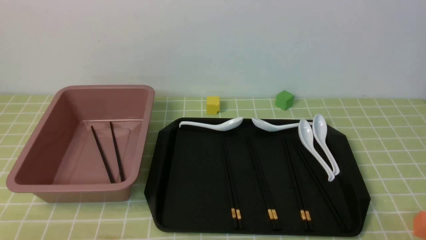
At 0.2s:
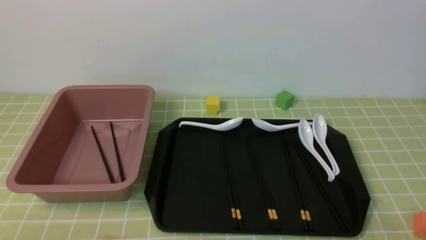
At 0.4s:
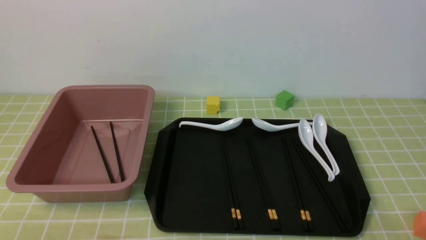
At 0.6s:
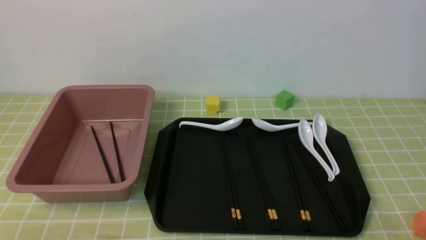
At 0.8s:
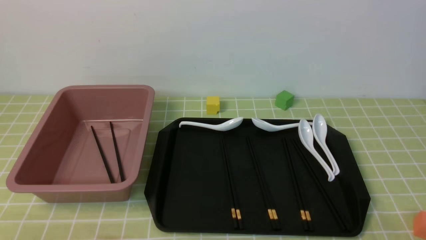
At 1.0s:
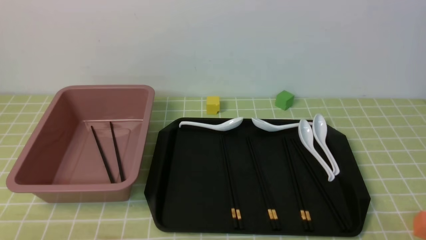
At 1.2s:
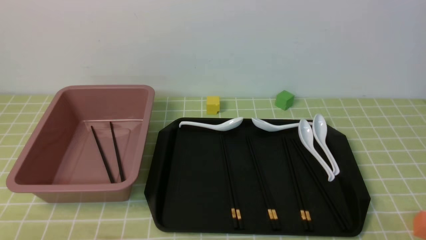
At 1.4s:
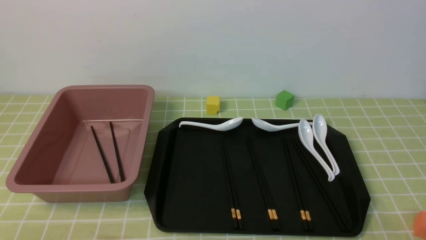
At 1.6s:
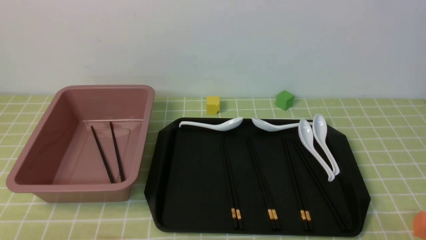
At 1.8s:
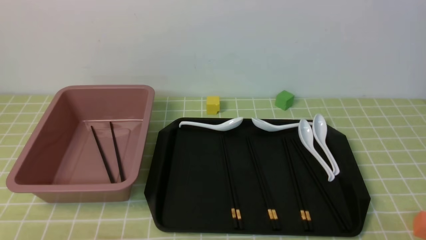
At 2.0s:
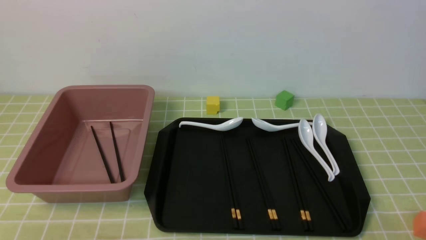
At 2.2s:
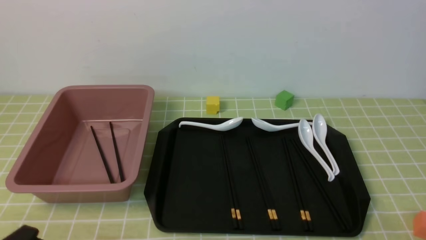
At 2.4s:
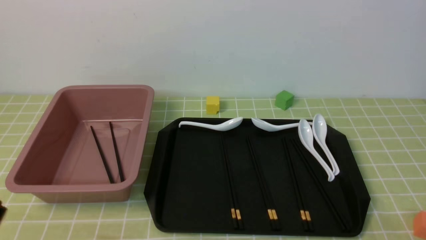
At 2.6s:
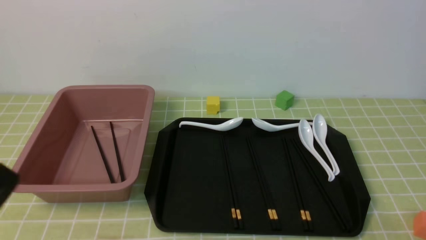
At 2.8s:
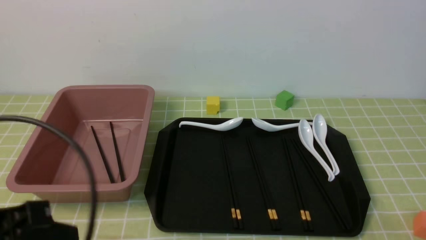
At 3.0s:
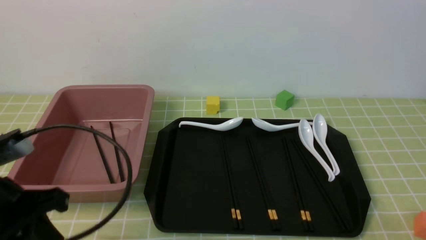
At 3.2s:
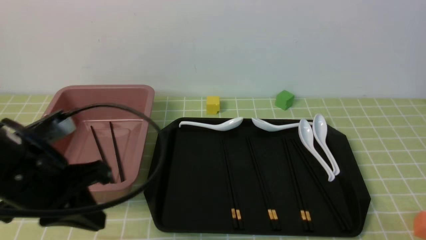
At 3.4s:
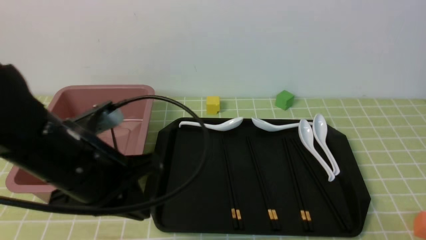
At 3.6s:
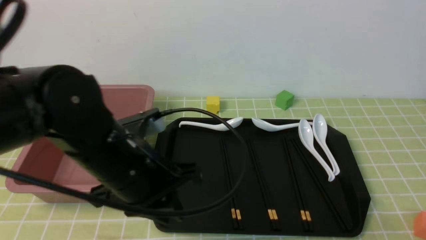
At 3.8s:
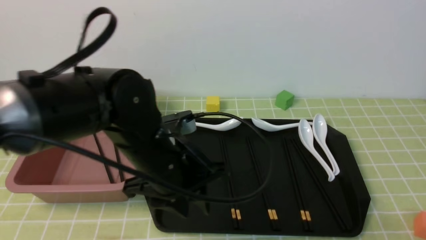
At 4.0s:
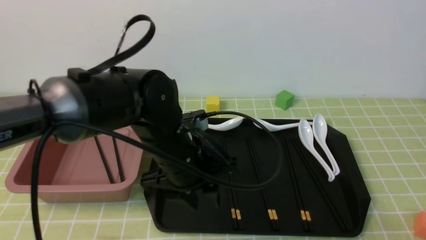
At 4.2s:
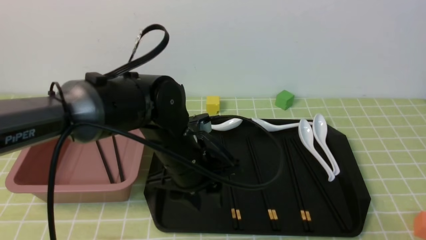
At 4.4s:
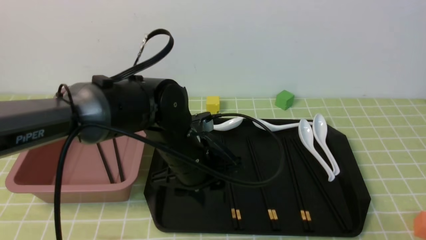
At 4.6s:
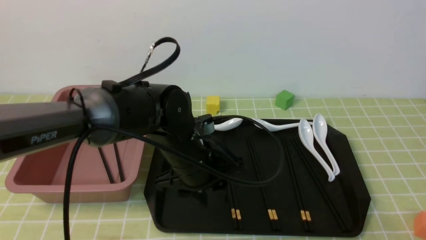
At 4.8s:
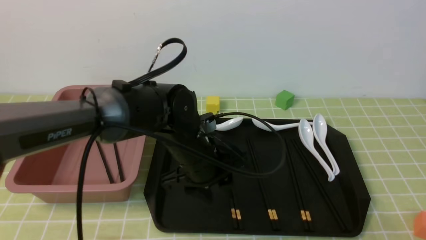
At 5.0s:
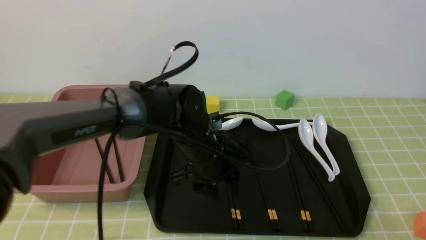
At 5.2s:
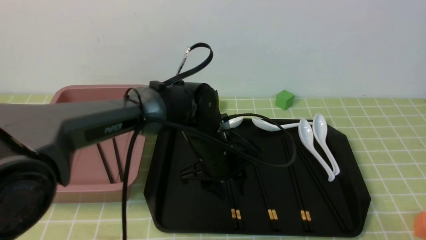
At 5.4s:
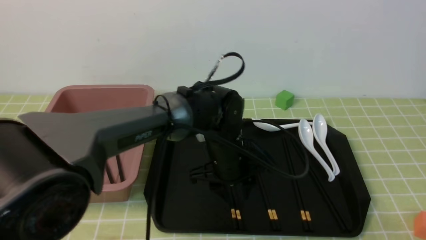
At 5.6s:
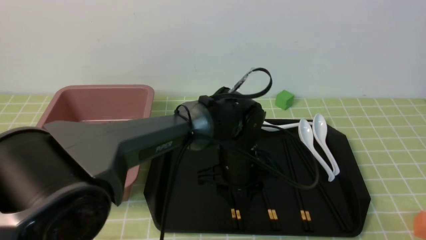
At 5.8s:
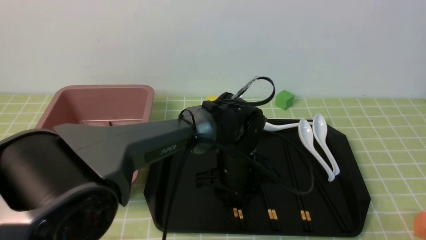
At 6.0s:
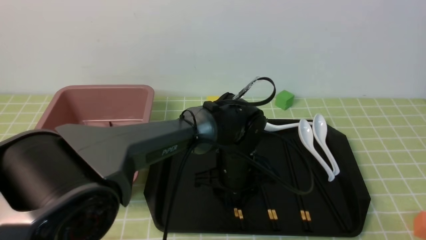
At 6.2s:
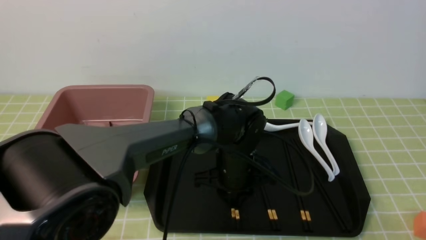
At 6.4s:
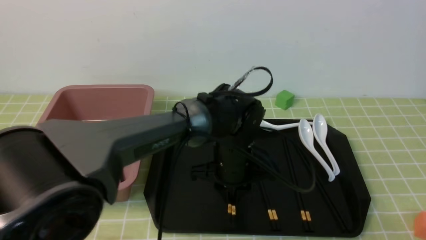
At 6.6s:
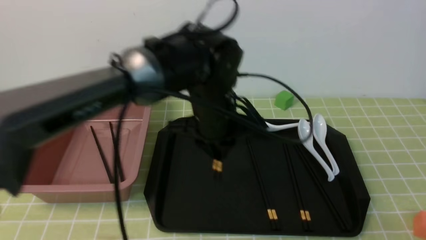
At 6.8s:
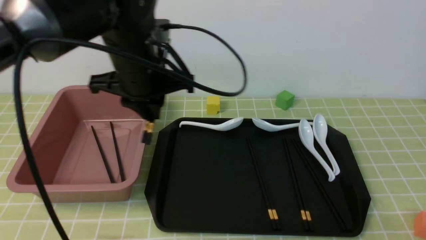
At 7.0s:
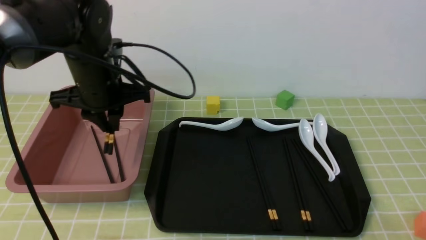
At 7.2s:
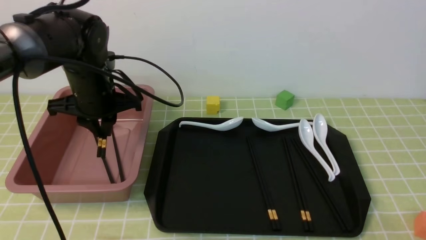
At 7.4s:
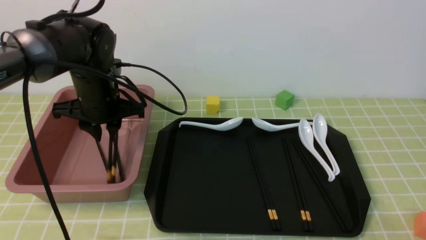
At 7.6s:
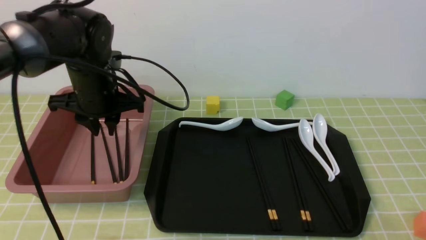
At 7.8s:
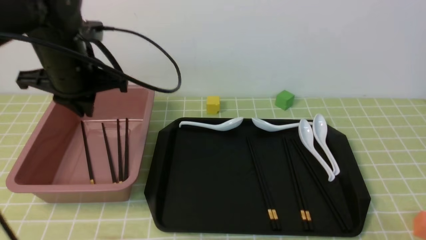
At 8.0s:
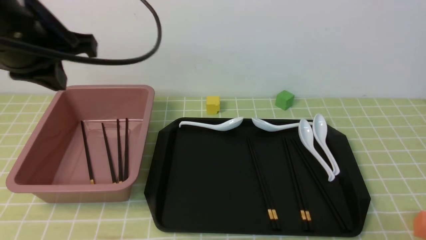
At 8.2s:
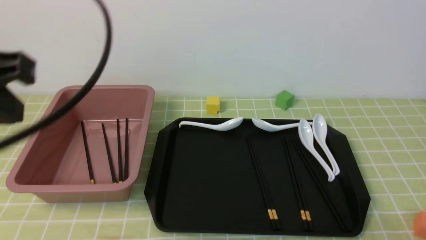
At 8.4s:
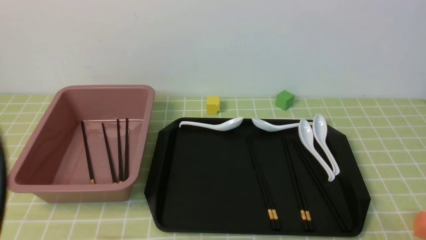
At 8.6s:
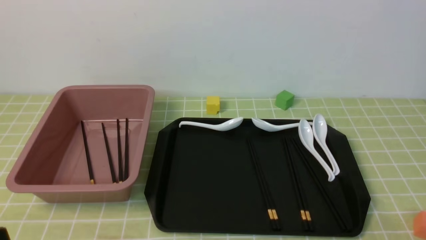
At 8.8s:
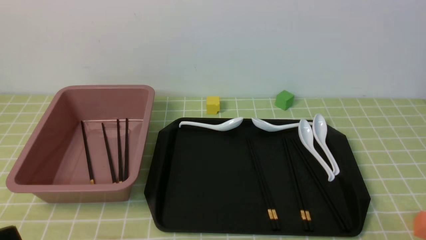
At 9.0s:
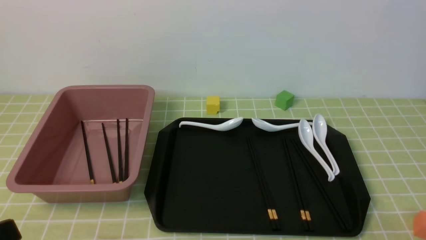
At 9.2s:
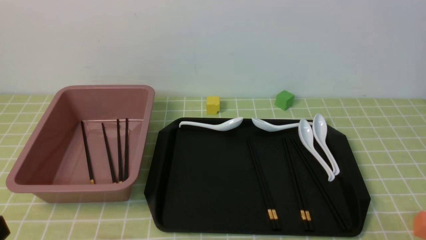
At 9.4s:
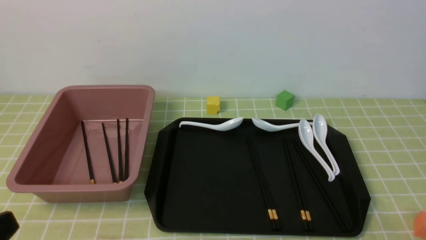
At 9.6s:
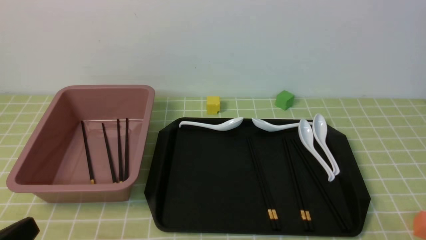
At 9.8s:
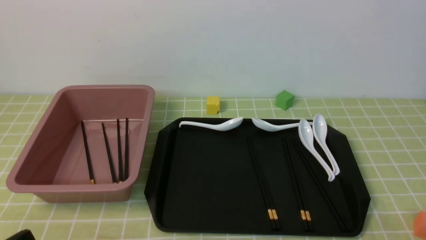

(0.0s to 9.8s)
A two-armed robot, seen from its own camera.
Step, 0.0s - 6.6s: use the left arm to grab a pair of chopsticks.
Step, 6.8s - 7.8s: use the left arm to put the chopsticks into the lunch box.
0.0s - 1.4s: Neither gripper changes place.
1.4s - 2.8s: The left gripper is displaced upward and forward by approximately 15 cm, and closes up.
2.8s - 4.2s: The left gripper shifts about 25 cm to the right, forward and downward, and opens its fingers.
4.2s - 5.6s: The left gripper is displaced to the right, downward and forward by about 10 cm.
5.6s - 7.0s: The left gripper travels to the left and upward by about 25 cm, and closes.
7.0s - 8.4s: The left gripper shifts roughly 30 cm backward, and closes up.
8.4s - 9.8s: The left gripper goes approximately 15 cm downward.

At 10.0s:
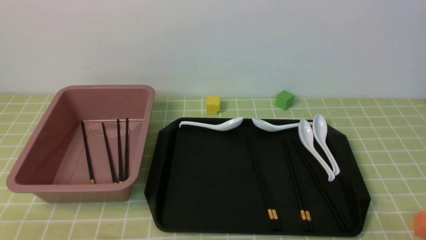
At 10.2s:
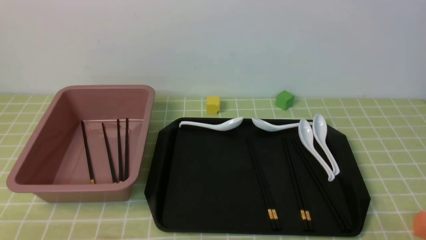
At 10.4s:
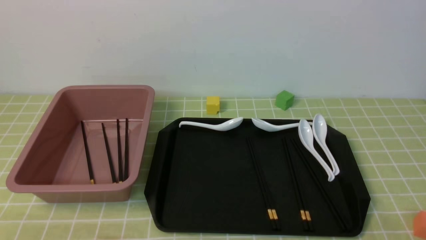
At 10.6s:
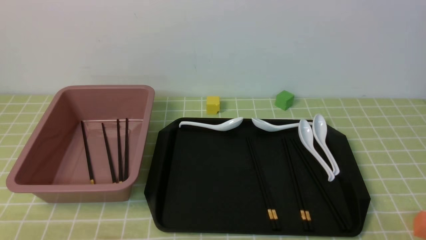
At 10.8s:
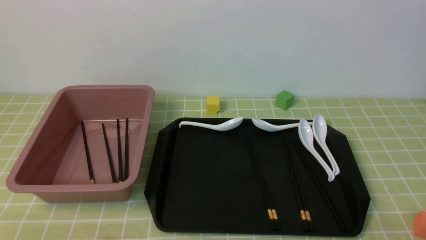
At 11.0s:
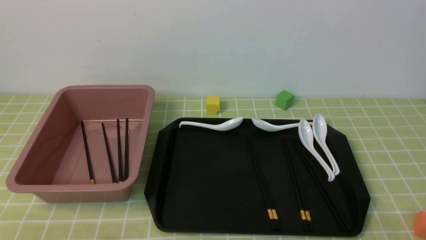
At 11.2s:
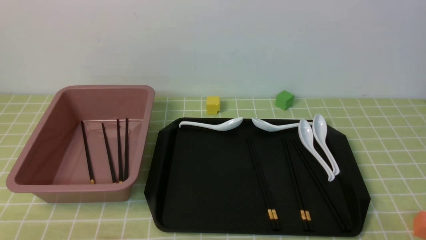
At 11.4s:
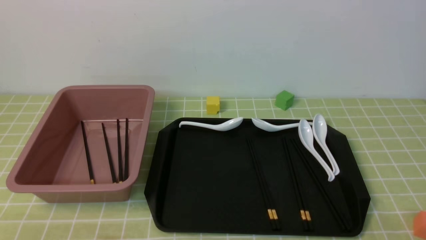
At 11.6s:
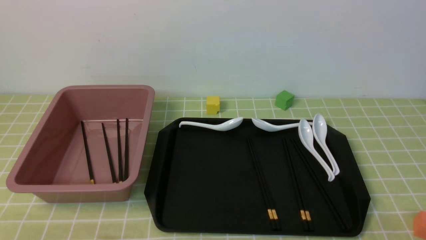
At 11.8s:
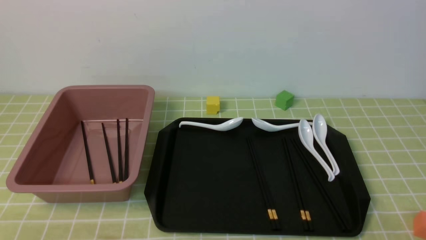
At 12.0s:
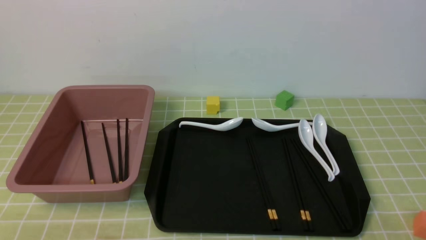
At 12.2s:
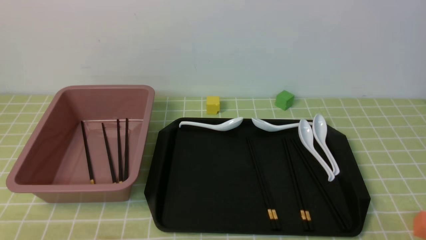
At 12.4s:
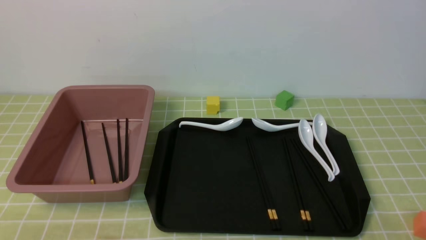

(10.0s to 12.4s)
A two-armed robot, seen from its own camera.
11.2s - 12.4s: Both grippers stay about where they are.

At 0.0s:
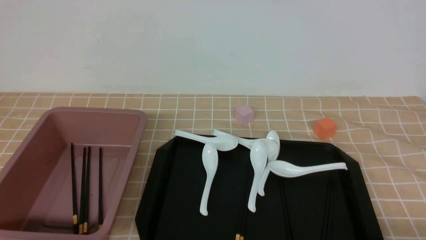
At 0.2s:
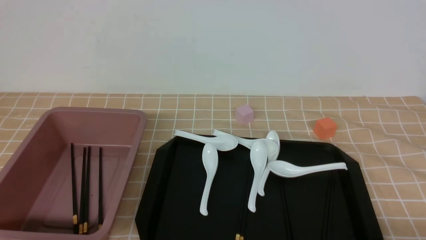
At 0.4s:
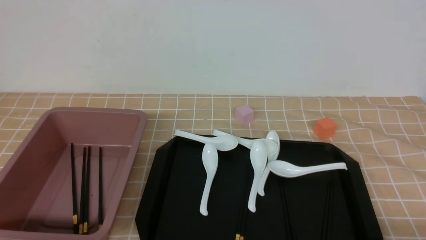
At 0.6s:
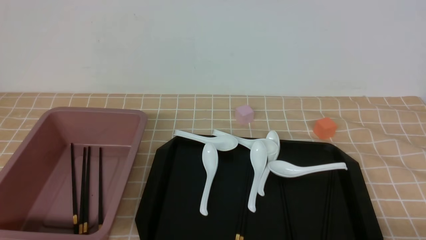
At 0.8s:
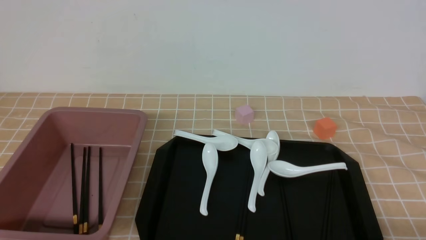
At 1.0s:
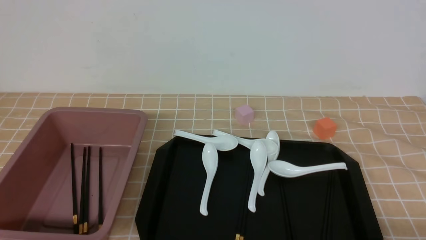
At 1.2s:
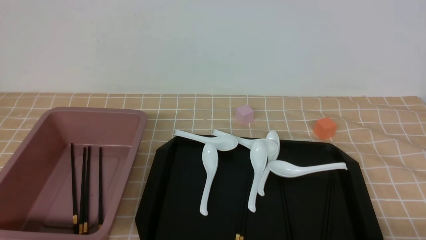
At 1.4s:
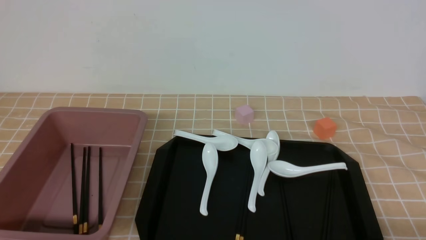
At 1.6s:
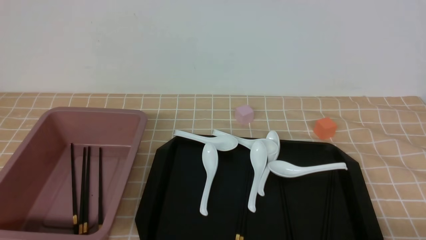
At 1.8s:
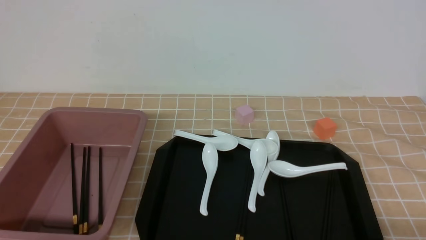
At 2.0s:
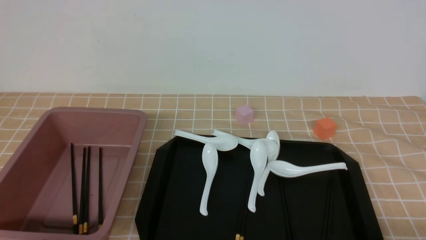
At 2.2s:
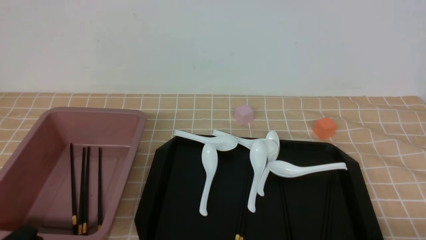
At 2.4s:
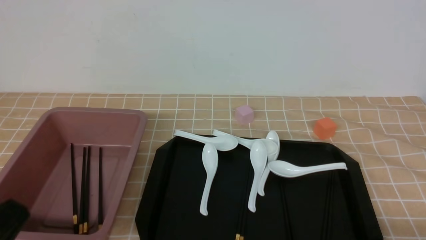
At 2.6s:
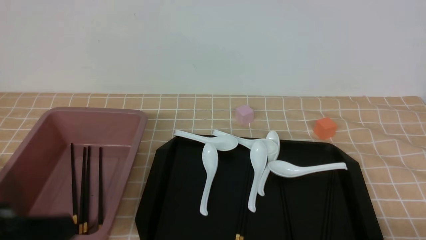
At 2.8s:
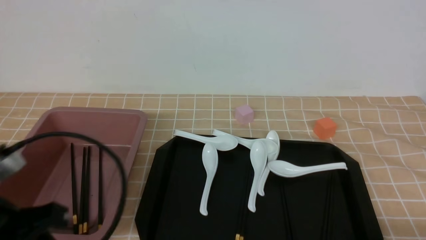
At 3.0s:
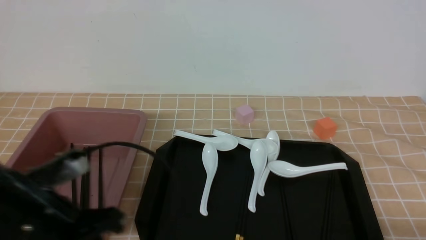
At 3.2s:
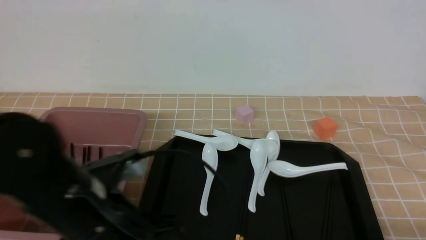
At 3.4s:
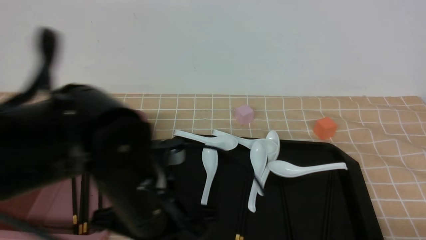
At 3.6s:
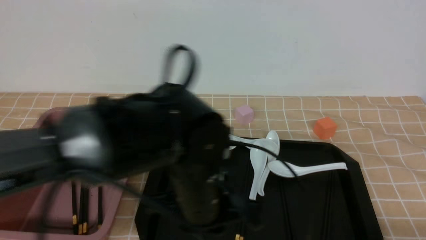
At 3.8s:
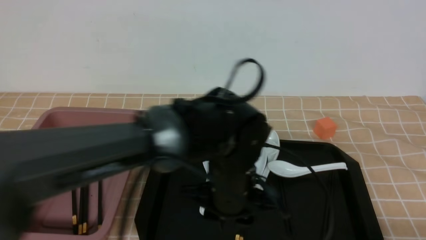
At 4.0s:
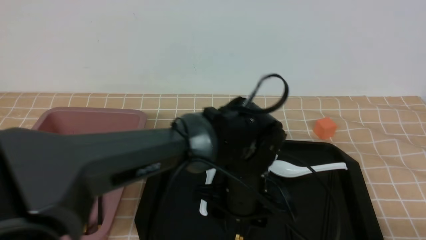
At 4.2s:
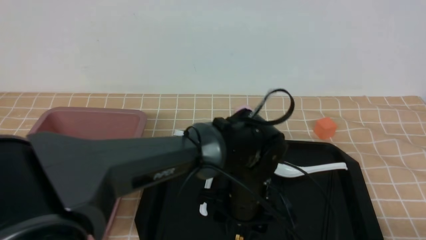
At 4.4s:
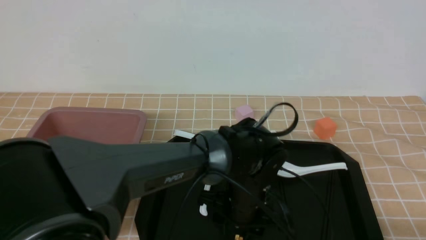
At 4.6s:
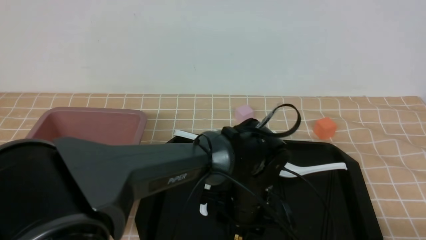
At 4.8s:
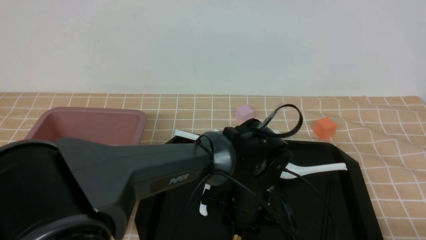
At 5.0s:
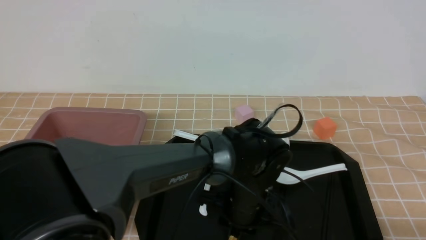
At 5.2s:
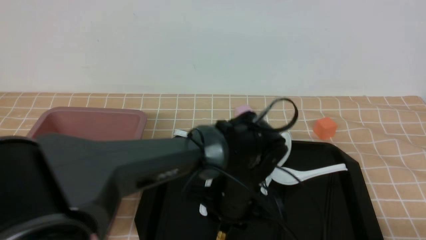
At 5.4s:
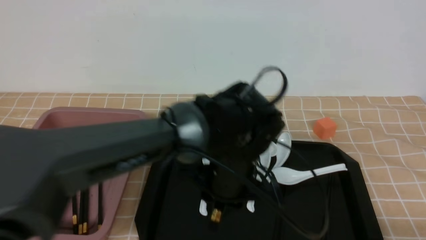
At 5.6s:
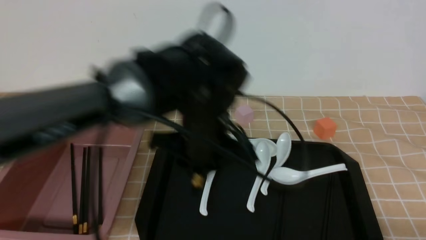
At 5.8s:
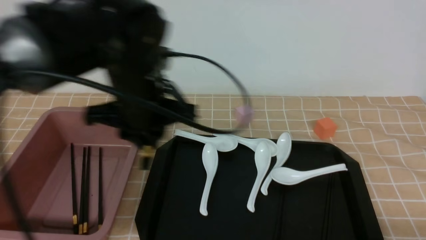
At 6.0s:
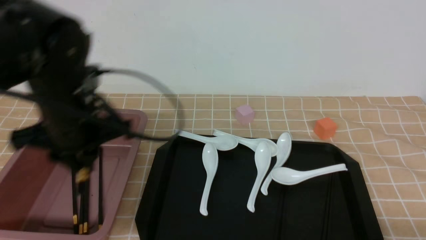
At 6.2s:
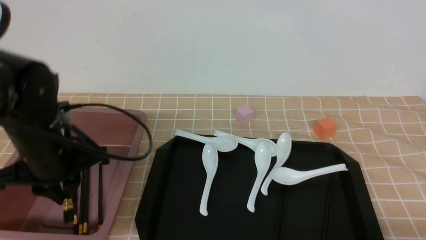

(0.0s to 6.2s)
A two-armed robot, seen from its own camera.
Step, 0.0s - 5.4s: use the left arm to grab a pair of chopsticks.
1.6s - 3.2s: The left gripper moves forward, to the right and upward, some 20 cm, and closes up.
3.2s - 4.6s: The left gripper travels to the right, downward and forward by some 25 cm, and opens.
4.6s - 6.2s: The left gripper goes approximately 25 cm to the left and upward, and closes up.
